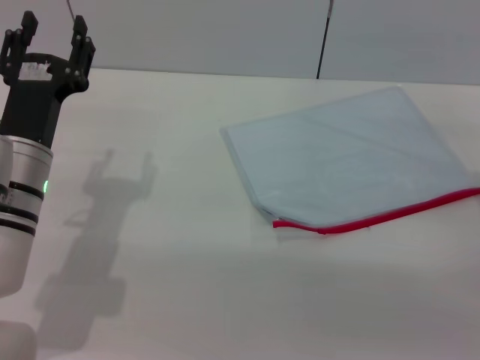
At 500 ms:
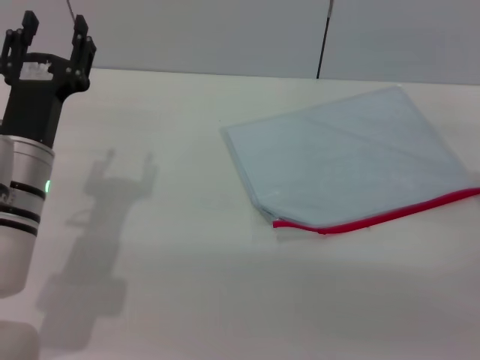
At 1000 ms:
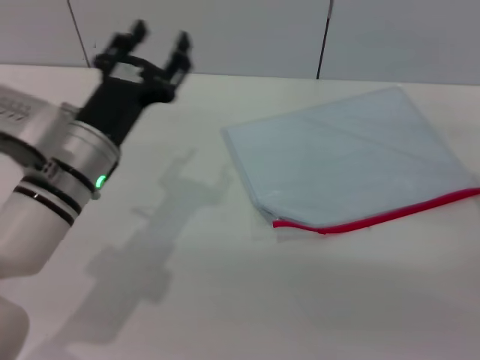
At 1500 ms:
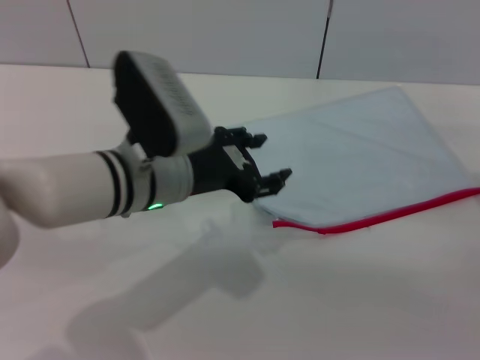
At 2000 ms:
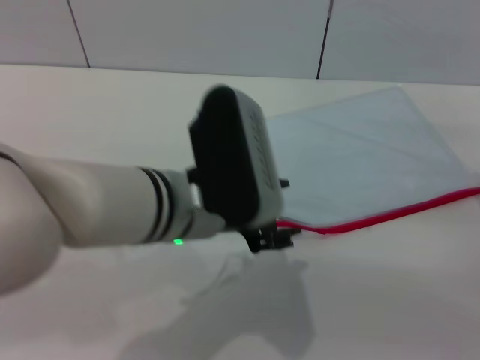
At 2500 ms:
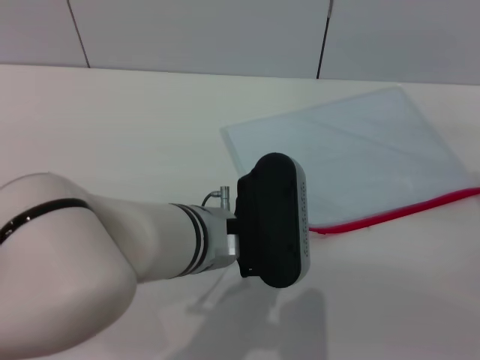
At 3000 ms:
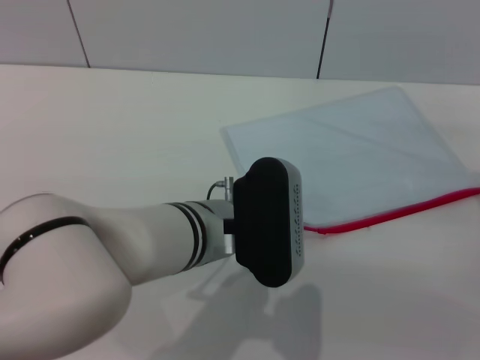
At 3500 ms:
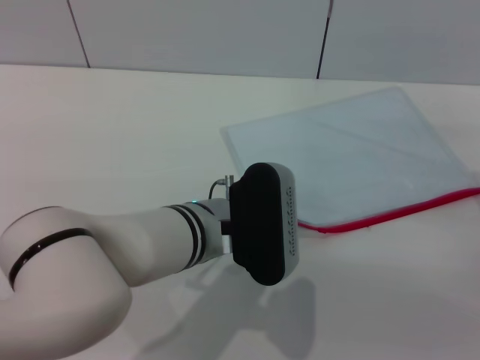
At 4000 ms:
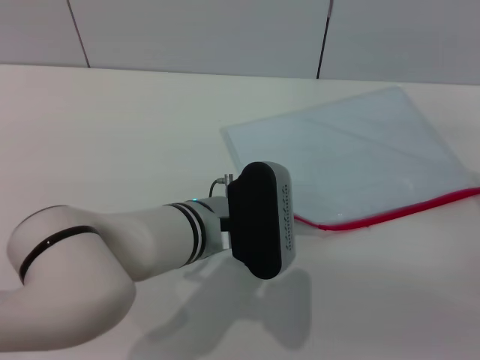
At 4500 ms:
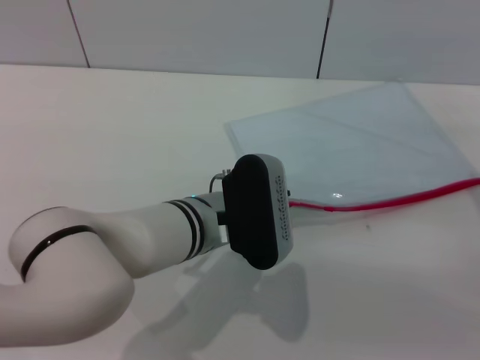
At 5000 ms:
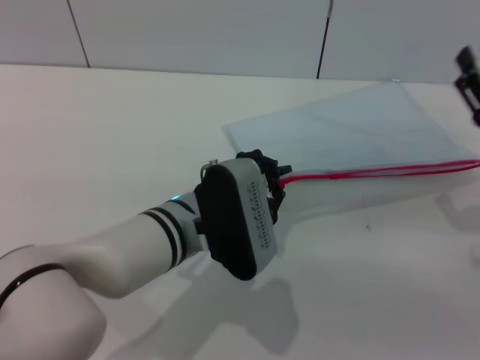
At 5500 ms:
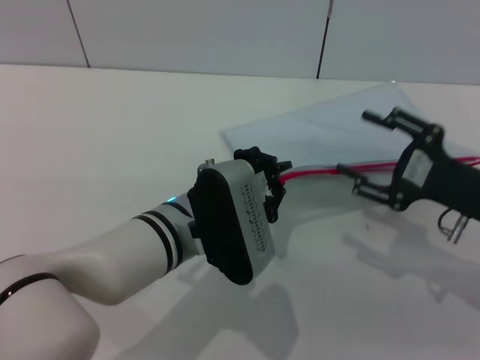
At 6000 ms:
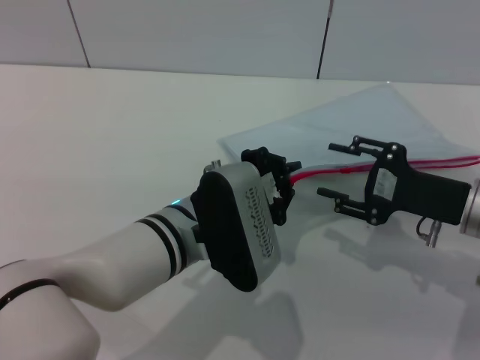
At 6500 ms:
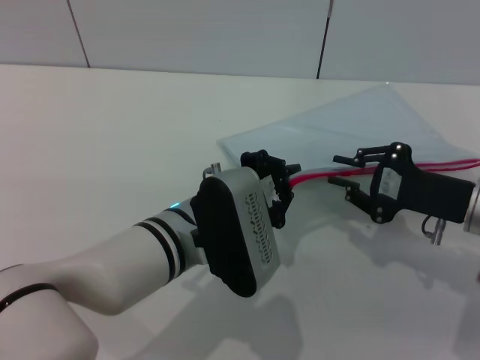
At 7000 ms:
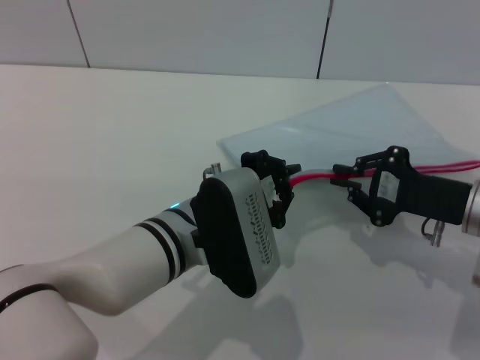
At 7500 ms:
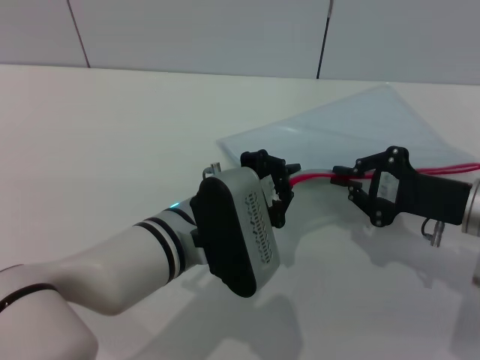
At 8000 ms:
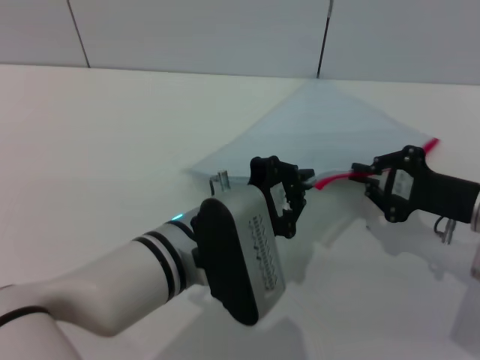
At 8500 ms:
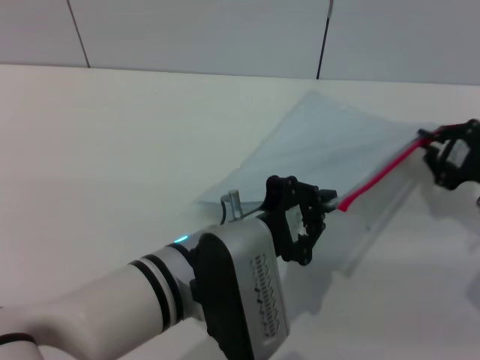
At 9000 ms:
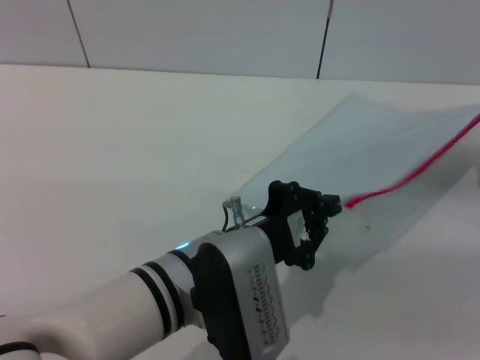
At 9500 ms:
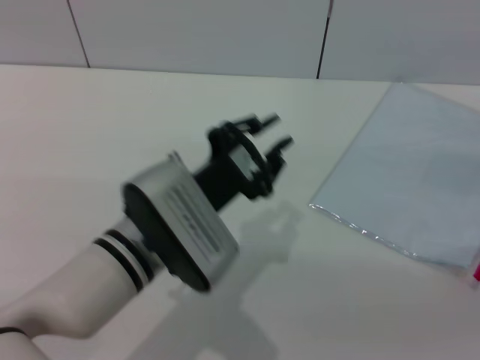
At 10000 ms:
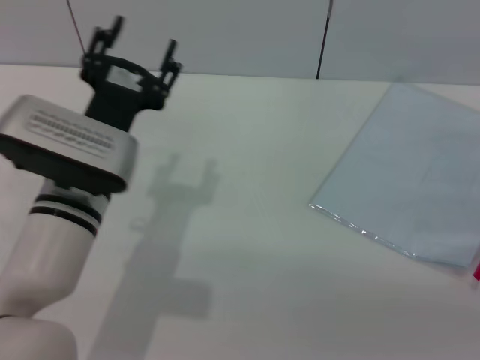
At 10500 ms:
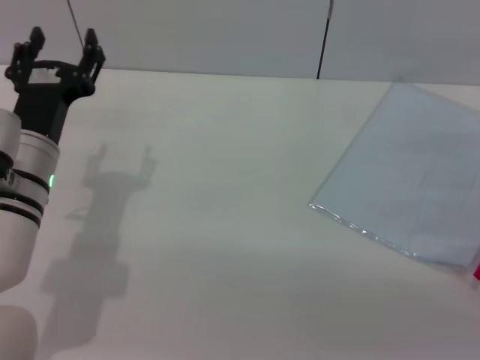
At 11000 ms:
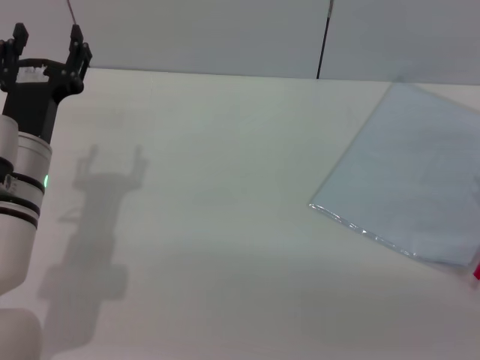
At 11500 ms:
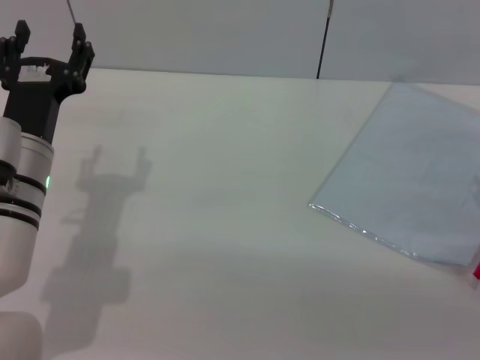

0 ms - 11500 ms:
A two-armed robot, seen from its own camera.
Step, 0 ms - 5000 ms: Pick up the transparent plastic bag with the left gripper.
Step, 5500 ms - 9000 ms: Pulling up the zipper on the transparent plastic bag with the right gripper to close it.
Step, 9500 ms - 10000 ms: Place the transparent plastic bag.
0 ms - 2000 ms: The left gripper shifts some 15 cm to the right and upward.
2000 ms - 4000 ms: The left gripper travels downward by roughly 5 cm.
4000 ms - 6000 ms: The right gripper shifts about 5 cm to the left; the left gripper closes its fingers.
6000 ms - 7500 ms: The right gripper closes.
7500 ms - 9500 ms: The right gripper goes roughly 10 cm to the right, and opens.
9500 ms - 11500 ms: The left gripper shifts some 15 cm to the left and forward, and opens; the right gripper shifts roughly 5 cm to the left, and opens up.
